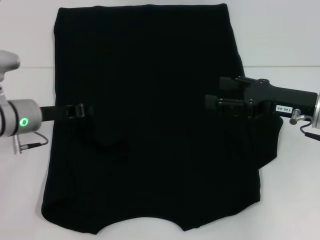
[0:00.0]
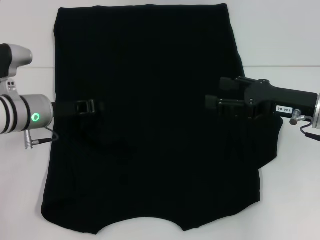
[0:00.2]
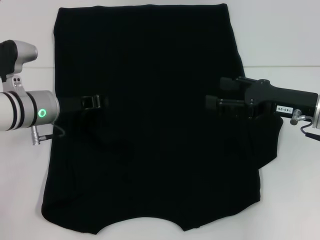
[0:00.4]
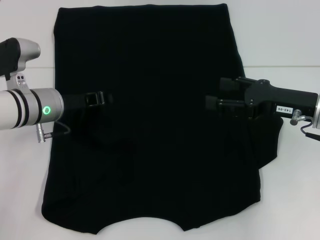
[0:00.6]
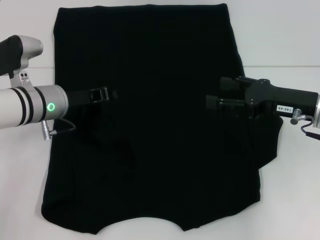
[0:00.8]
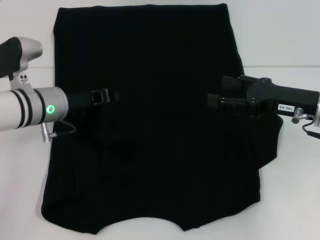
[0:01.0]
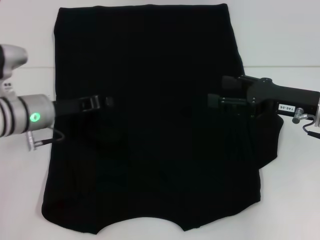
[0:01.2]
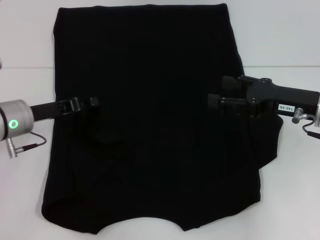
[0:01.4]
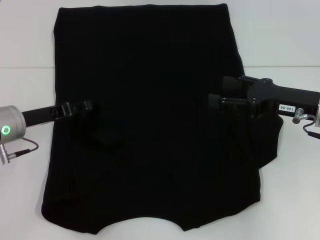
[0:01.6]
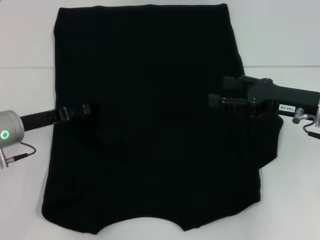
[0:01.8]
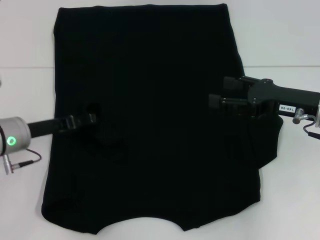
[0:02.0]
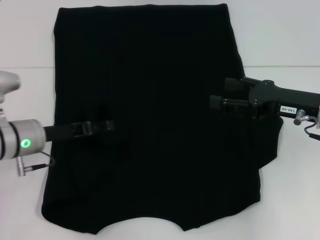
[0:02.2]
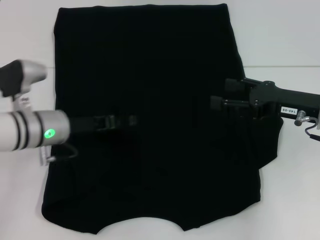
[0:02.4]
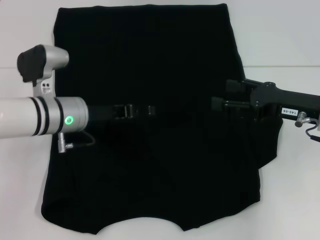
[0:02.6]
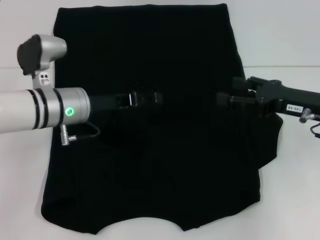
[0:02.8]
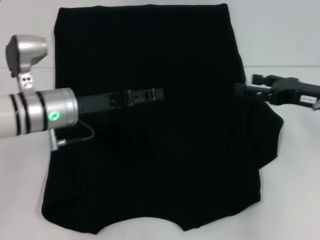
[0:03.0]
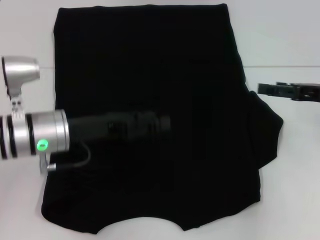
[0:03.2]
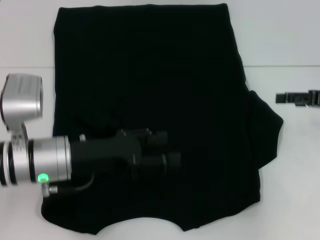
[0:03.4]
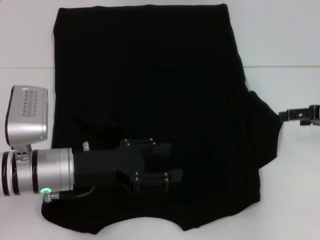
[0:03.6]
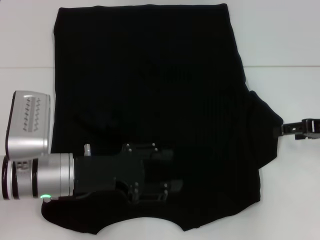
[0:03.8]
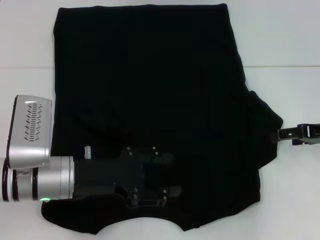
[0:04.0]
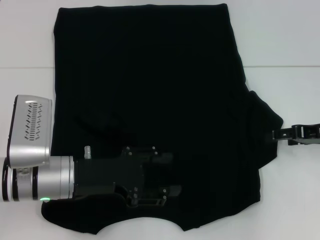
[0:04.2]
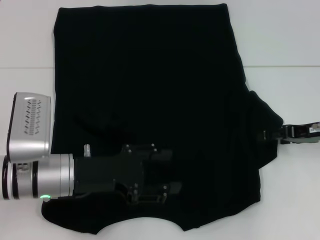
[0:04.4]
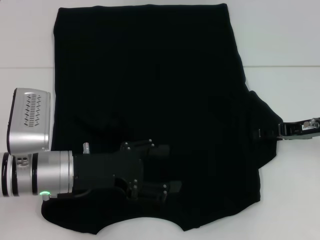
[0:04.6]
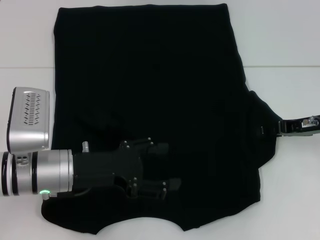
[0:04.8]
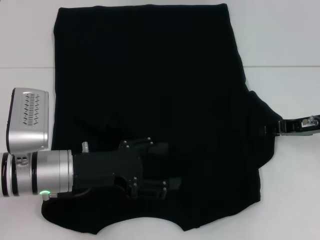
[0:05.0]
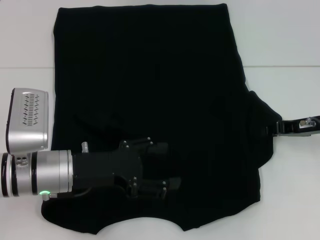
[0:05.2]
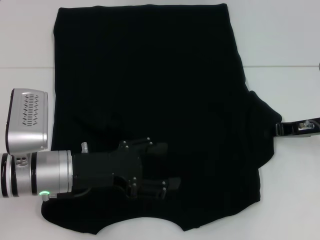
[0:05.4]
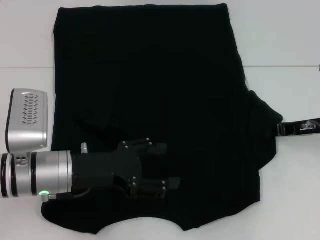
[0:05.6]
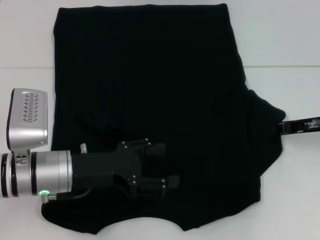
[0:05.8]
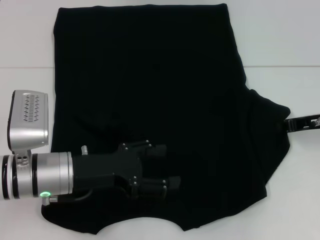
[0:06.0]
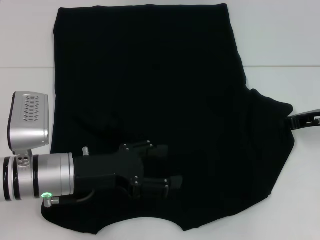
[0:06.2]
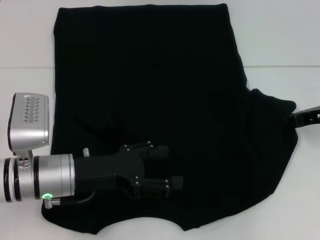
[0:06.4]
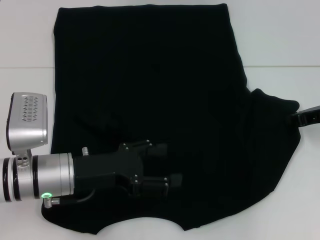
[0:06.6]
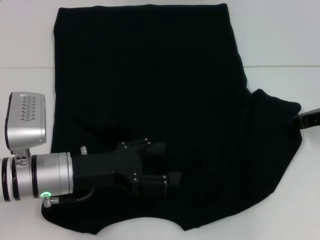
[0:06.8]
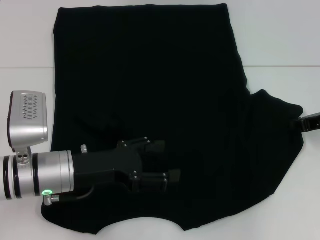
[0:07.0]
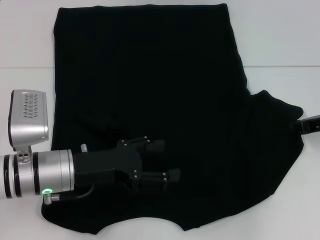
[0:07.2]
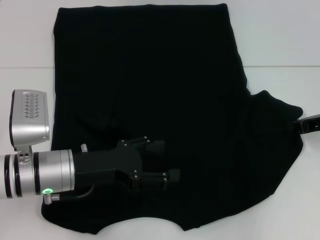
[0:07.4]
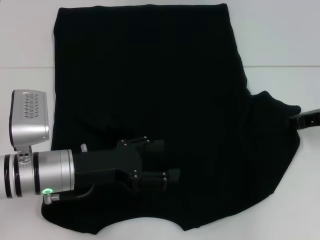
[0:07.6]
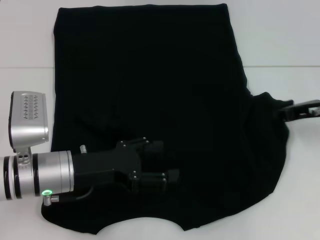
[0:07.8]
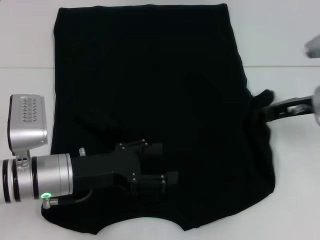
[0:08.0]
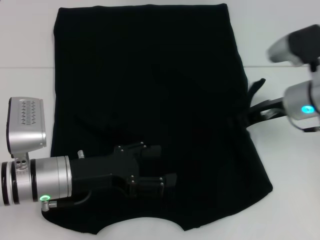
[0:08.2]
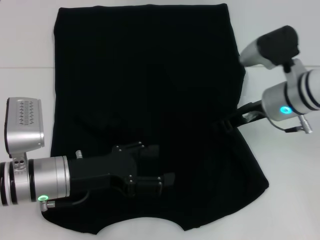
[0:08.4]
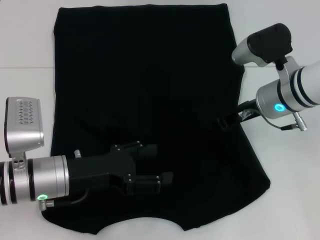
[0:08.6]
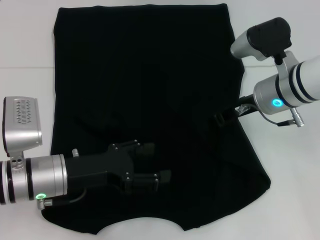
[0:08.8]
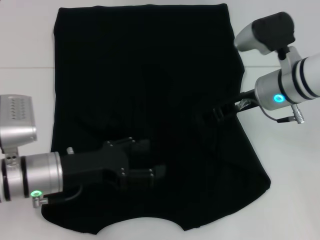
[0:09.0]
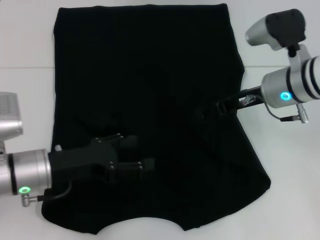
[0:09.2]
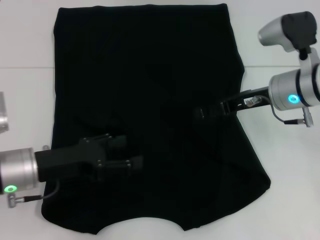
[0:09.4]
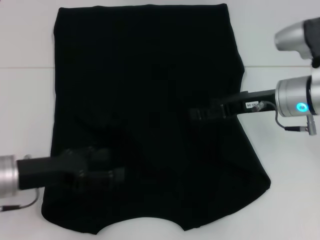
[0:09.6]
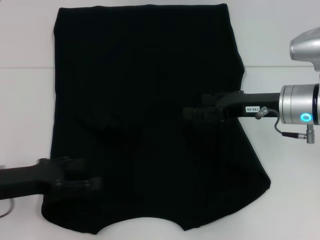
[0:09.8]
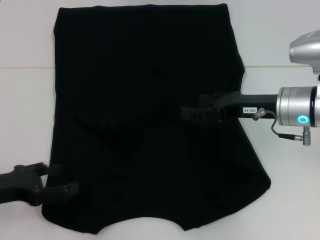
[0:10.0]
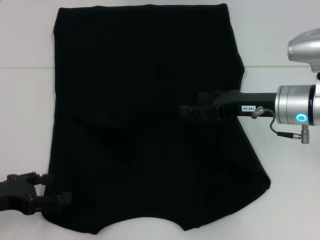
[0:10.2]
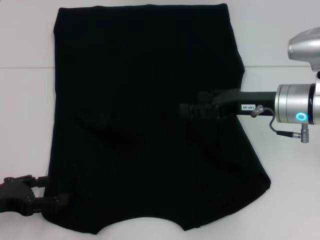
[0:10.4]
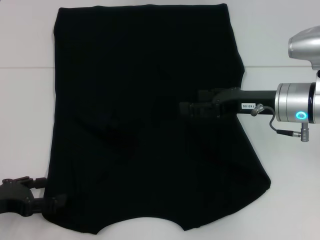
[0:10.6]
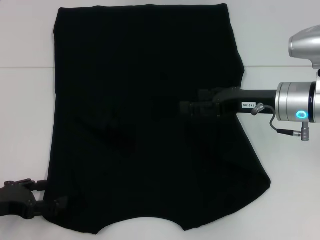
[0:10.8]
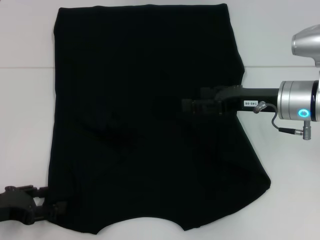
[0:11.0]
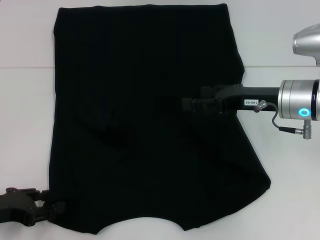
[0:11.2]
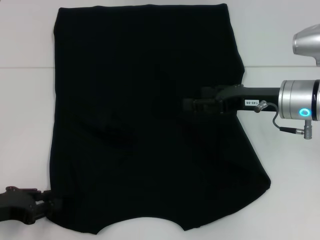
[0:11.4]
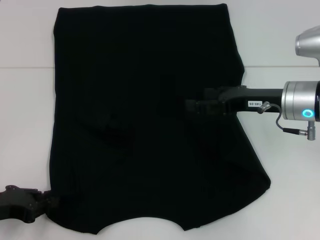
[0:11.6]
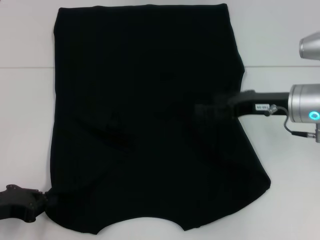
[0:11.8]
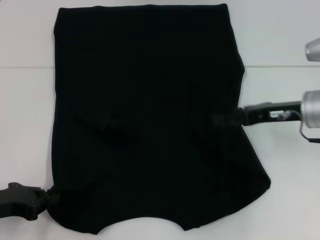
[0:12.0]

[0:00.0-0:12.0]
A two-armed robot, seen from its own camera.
Step, 0:01.4 to 0:08.8: Fold the bottom right sleeve with your right hand.
Step, 0:09.0 to 0:11.8: Grab the bottom left corner with your left hand.
0:00.0 to 0:01.6: The left gripper opens.
0:01.6 to 0:03.0: The left gripper shifts some 10 cm to the right.
0:03.0 to 0:04.4: The left gripper shifts roughly 10 cm backward.
0:04.4 to 0:06.0: The right gripper closes its fingers.
0:06.0 to 0:07.6: The grippers move only a little.
0:07.6 to 0:09.0: The right gripper heads to the left, covering some 15 cm.
0:09.0 to 0:10.4: The right gripper opens up, while the left gripper is displaced to the left by some 10 cm.
0:10.4 to 0:12.0: The left gripper closes.

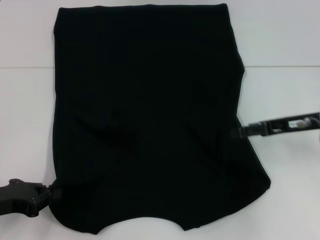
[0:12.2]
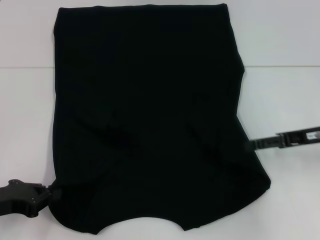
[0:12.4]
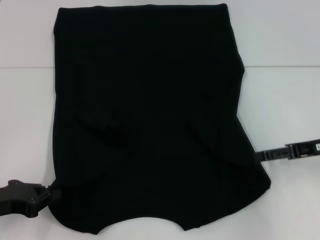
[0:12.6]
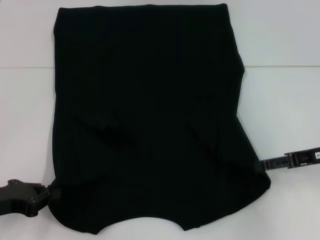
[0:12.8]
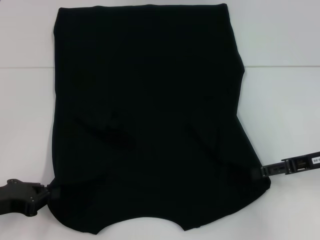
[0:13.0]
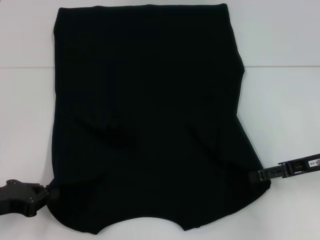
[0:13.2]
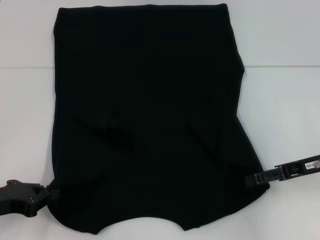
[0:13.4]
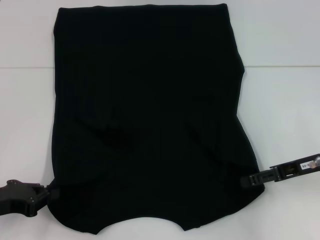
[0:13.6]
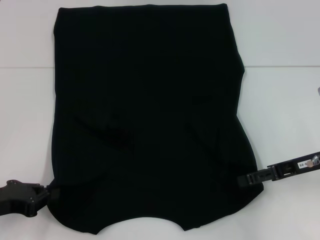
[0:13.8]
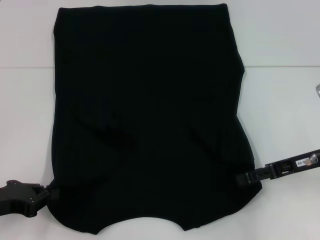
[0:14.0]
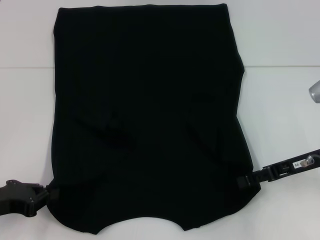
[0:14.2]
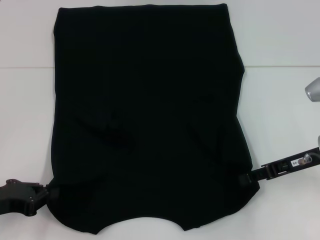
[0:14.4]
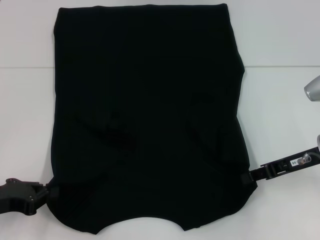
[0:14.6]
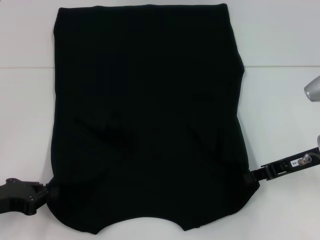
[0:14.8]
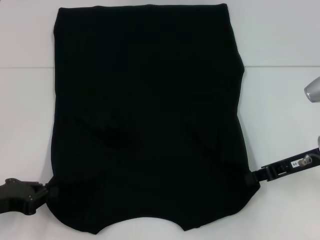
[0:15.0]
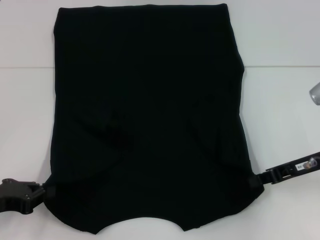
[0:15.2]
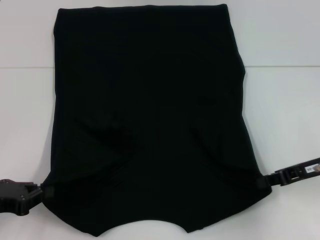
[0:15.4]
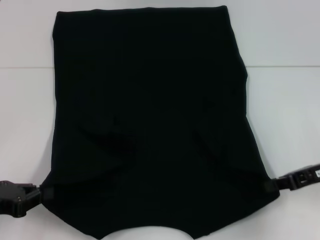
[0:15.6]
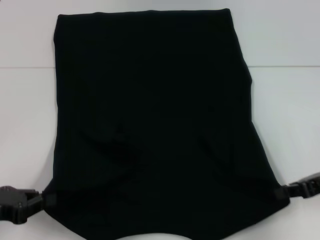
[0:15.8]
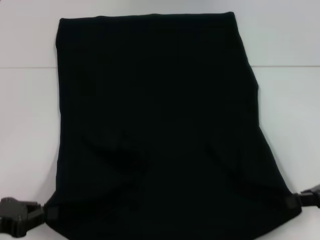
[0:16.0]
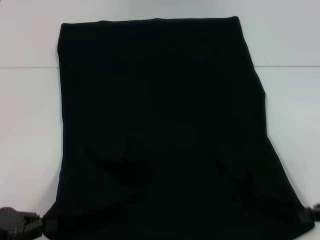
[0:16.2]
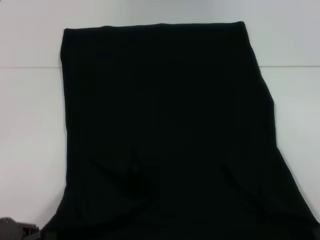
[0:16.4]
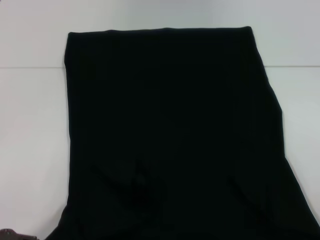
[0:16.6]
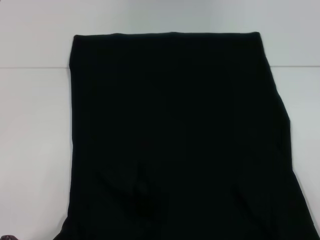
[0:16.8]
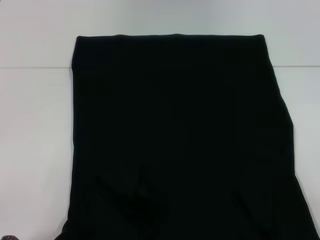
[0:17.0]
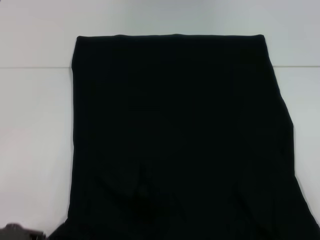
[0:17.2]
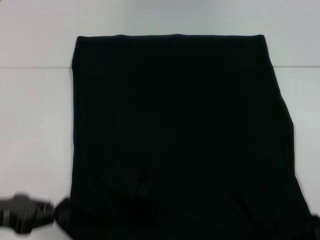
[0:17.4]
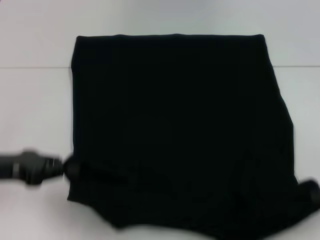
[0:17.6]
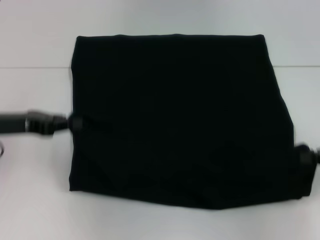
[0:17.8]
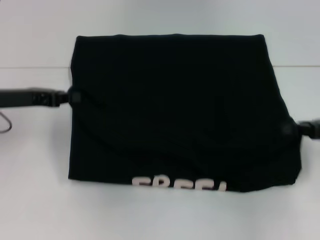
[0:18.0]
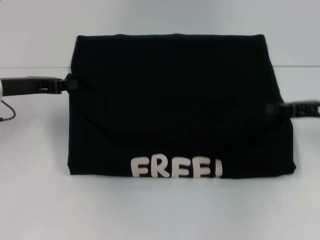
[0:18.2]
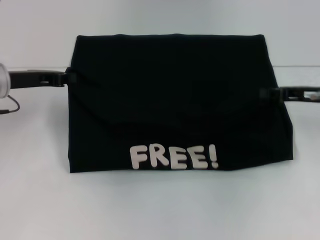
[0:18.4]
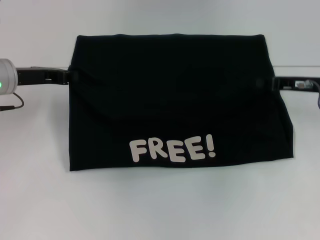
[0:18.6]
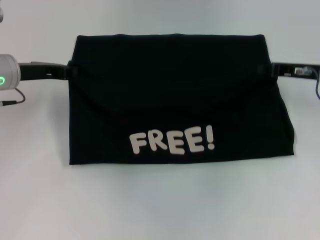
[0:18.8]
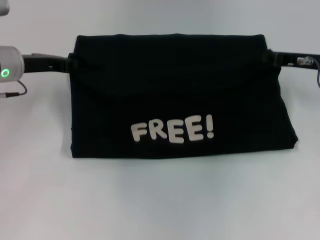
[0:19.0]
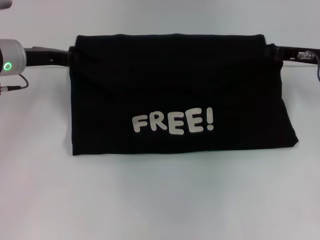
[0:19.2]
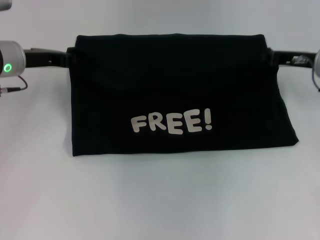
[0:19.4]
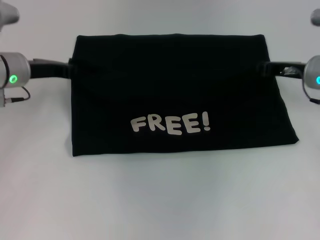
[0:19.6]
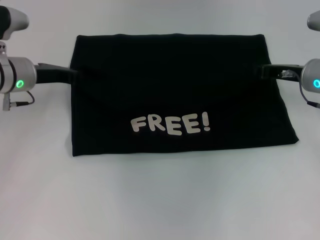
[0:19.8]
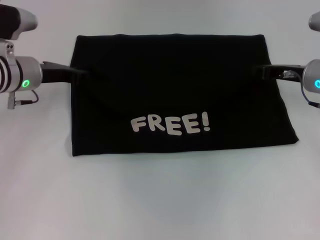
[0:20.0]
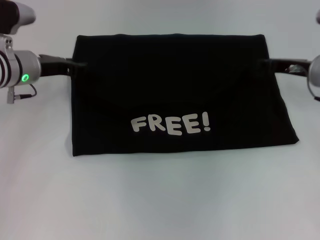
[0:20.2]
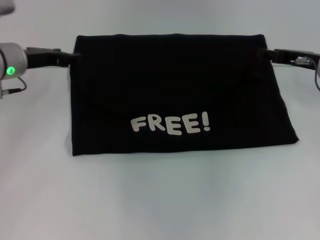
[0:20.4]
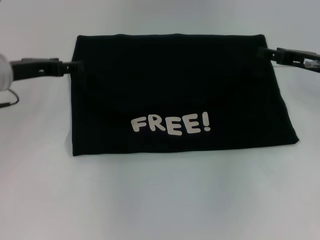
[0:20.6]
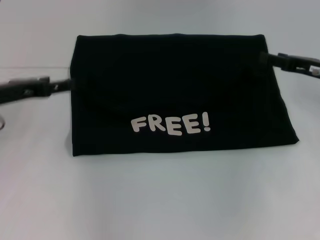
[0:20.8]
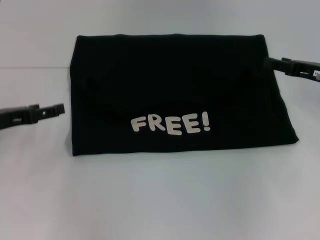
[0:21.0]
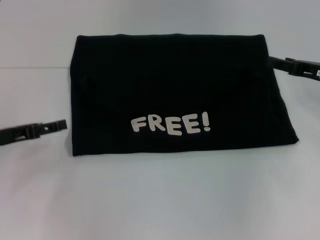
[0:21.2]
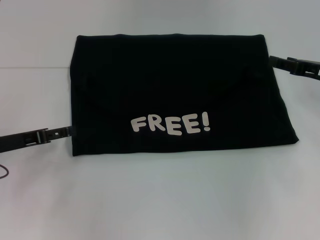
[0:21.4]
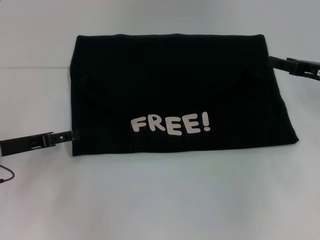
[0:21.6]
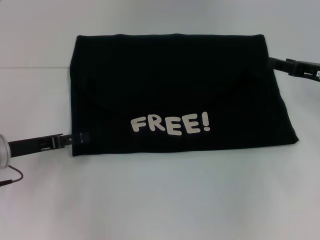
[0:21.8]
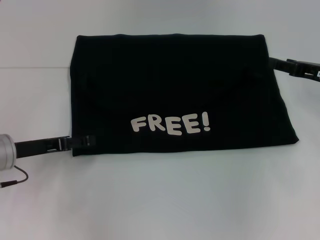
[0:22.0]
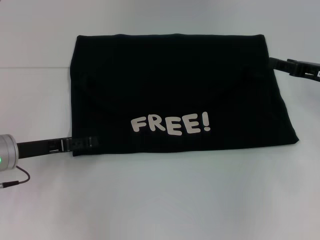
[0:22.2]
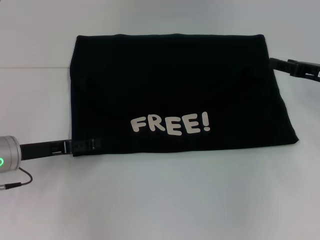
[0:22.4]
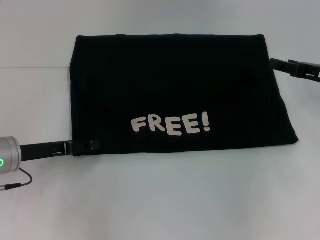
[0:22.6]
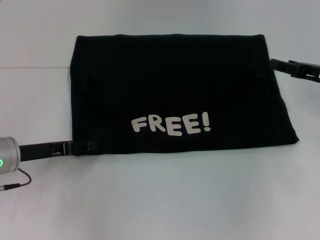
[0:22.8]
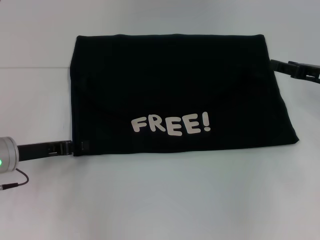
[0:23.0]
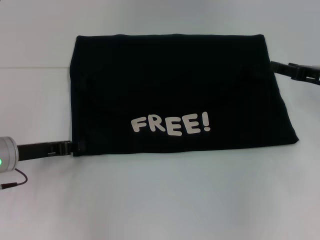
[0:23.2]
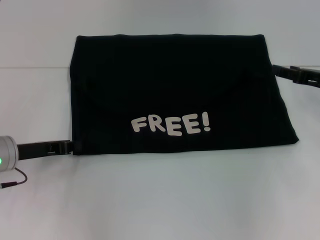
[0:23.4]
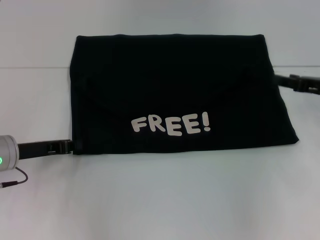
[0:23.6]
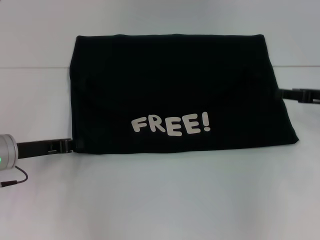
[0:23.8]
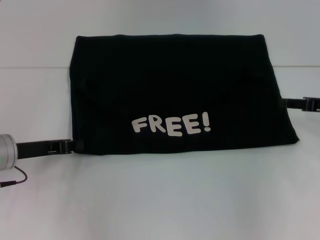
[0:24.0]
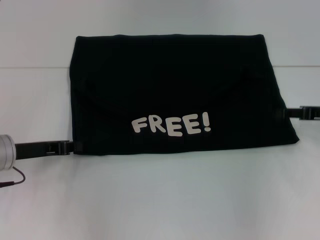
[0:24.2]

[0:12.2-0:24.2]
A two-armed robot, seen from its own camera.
Step, 0:12.2 to 0:15.2: Grab the bottom right corner with your right hand.
Step, 0:15.4 to 0:20.4: Fold the clothes with your left hand.
Step, 0:15.4 to 0:20.4: Fold the clothes with your right hand.
0:12.2 to 0:13.8: The grippers stay close to where they were, moving slightly.
0:13.8 to 0:15.2: The right gripper closes its fingers.
0:15.2 to 0:16.6: The right gripper heads backward and to the right, covering approximately 15 cm; the left gripper shifts about 5 cm backward.
0:16.6 to 0:18.2: The right gripper shifts about 15 cm forward and to the left. Meanwhile the left gripper shifts about 20 cm forward.
0:18.2 to 0:19.8: The right gripper is displaced forward and to the left by roughly 10 cm; the left gripper moves forward, about 5 cm.
0:19.8 to 0:21.2: The left gripper travels backward and to the left by approximately 15 cm, and opens. Meanwhile the right gripper goes about 5 cm to the right, and opens up.
0:21.2 to 0:22.6: The left gripper changes place by about 5 cm.
0:22.6 to 0:24.2: The left gripper closes.
